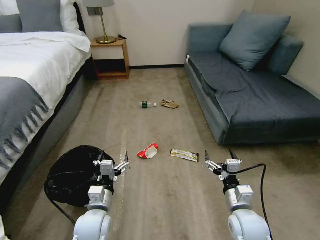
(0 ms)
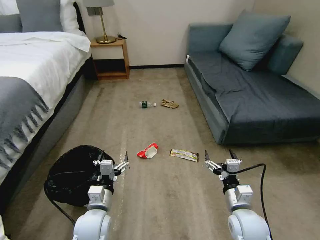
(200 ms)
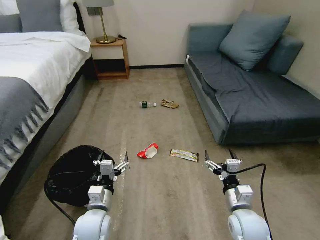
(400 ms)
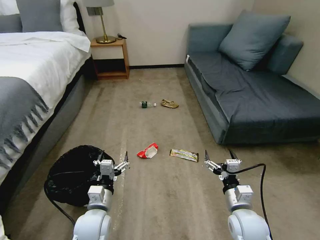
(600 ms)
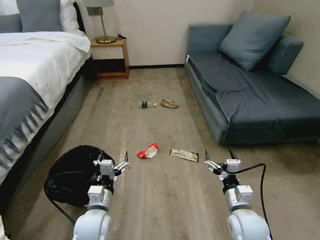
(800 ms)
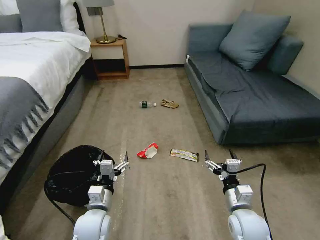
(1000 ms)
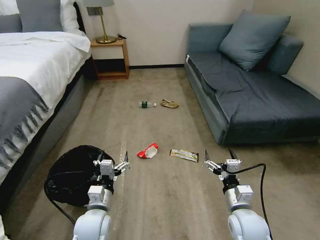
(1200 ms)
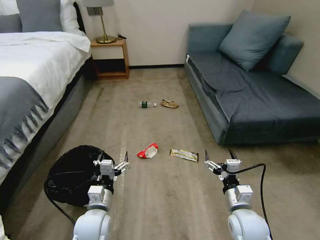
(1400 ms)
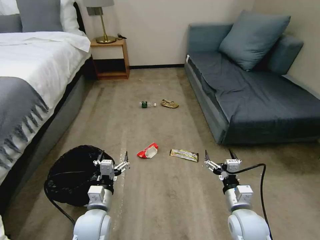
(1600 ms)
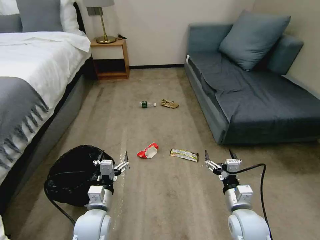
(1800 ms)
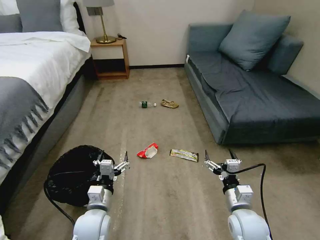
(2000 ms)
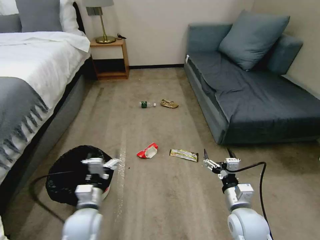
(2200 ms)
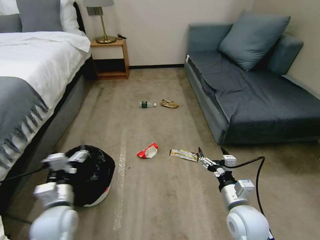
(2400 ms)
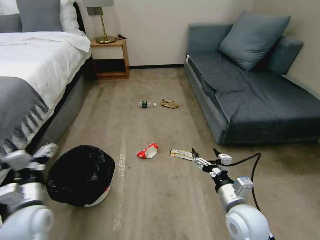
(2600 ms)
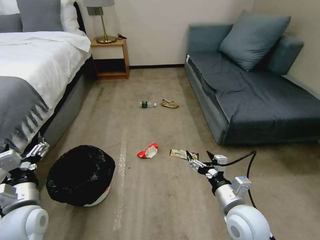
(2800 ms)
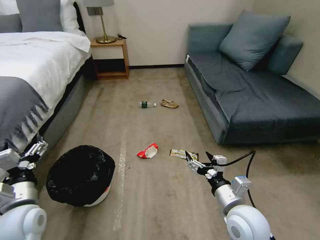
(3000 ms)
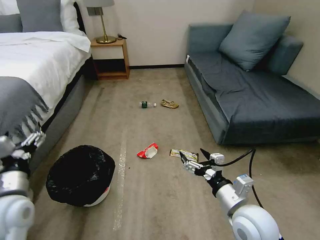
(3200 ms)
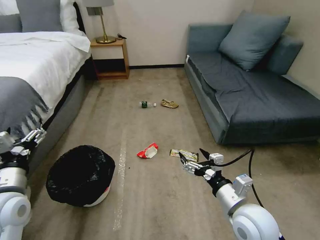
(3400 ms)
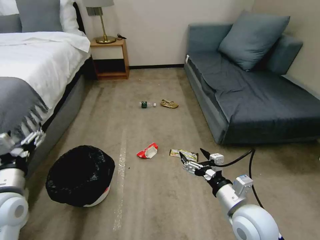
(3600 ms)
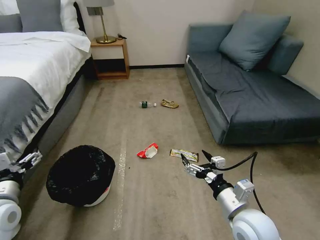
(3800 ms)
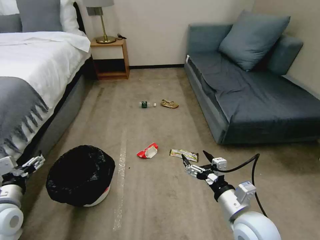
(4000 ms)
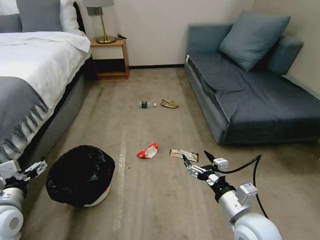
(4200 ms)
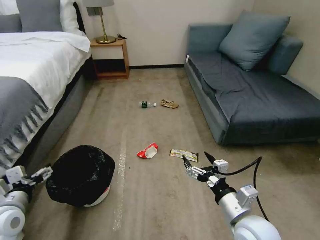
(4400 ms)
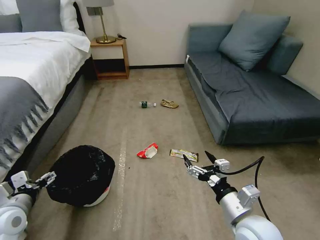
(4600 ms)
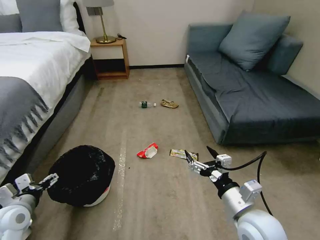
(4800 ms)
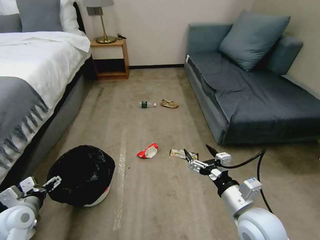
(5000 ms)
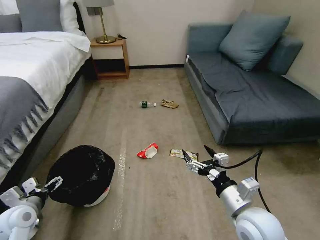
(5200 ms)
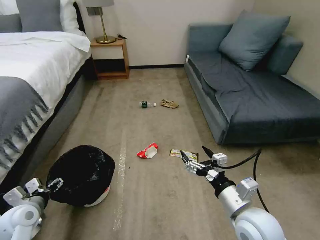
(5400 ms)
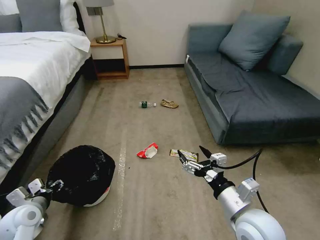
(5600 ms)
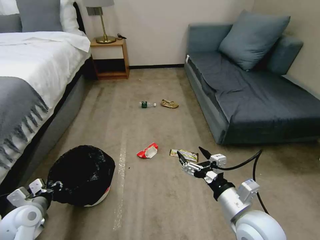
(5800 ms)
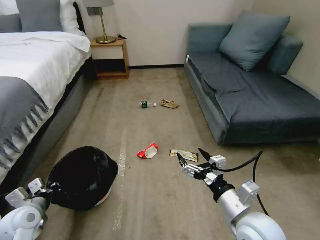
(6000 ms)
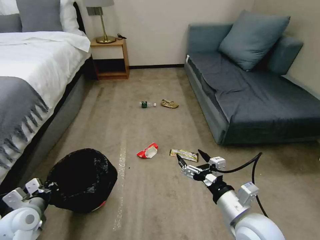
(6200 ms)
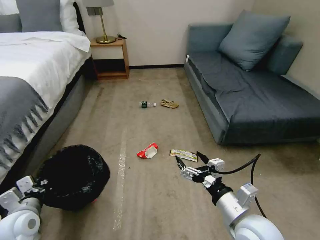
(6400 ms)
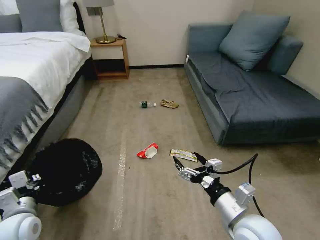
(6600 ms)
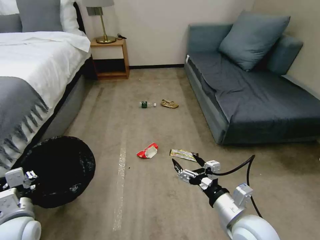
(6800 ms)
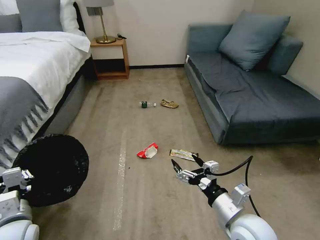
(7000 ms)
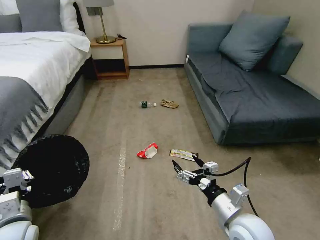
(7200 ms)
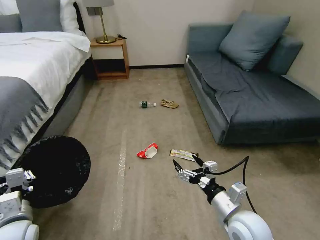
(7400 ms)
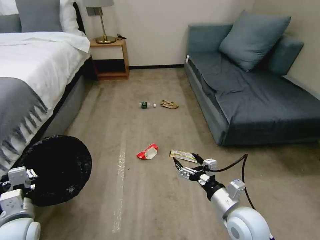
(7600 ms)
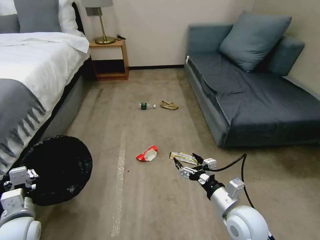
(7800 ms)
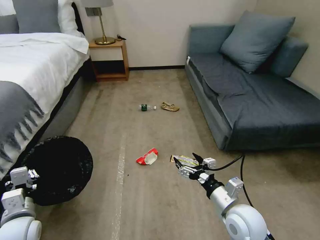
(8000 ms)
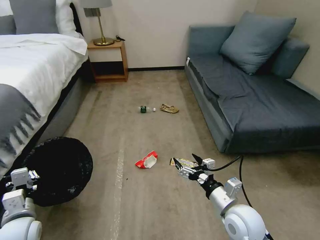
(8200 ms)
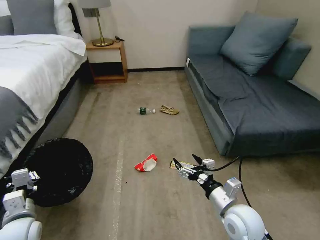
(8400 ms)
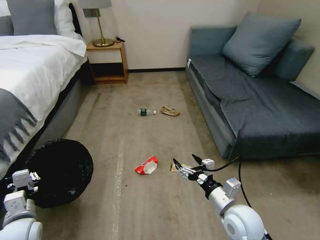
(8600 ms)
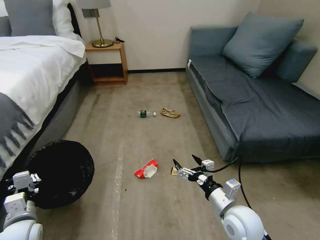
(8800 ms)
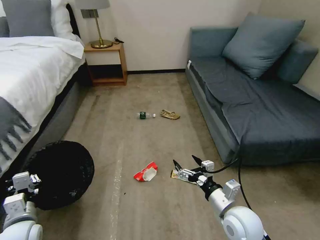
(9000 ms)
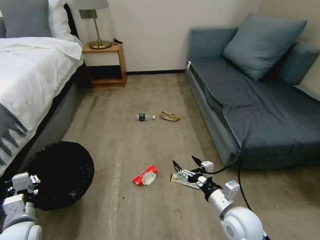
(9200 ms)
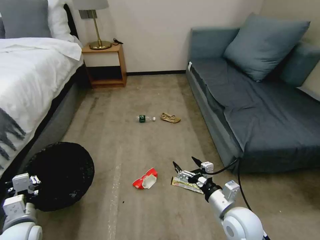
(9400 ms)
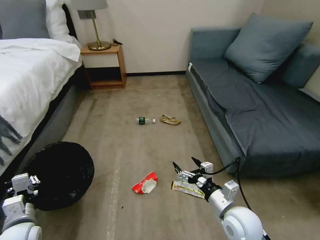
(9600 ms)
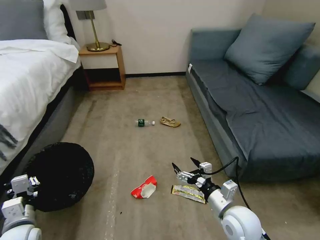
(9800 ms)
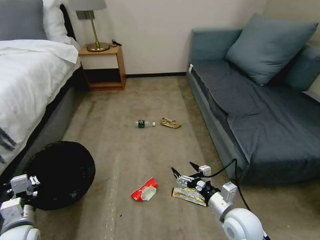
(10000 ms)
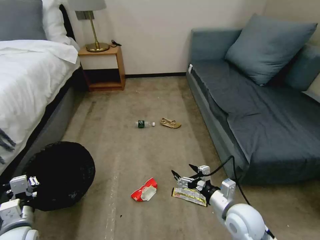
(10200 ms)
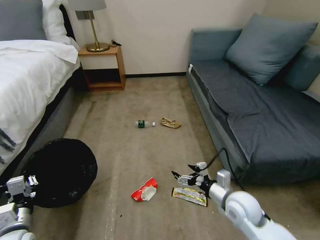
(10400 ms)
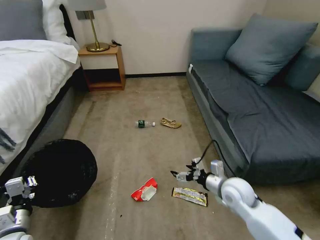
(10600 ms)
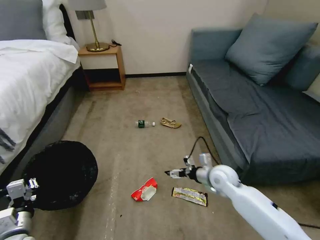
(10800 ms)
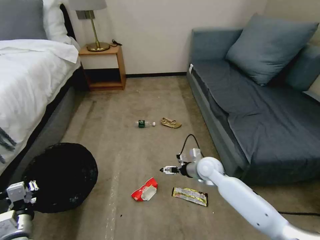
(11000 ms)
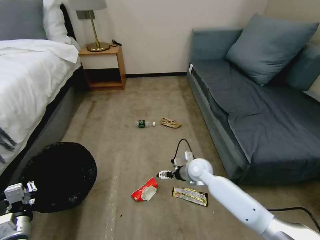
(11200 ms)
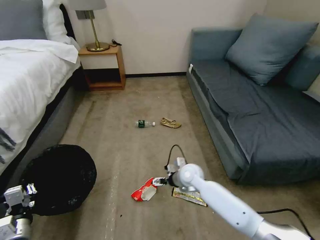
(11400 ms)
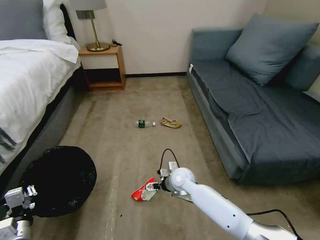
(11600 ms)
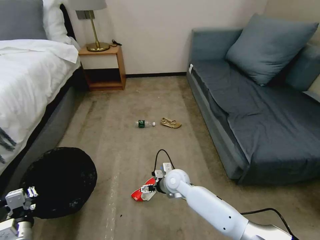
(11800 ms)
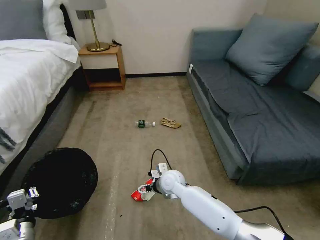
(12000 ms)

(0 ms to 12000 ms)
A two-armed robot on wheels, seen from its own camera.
Task of the whole recording: Pick up the trash bin, then pick up the garbage on the floor and place it into the trash bin.
1600 ms - 3000 ms: The left gripper goes about 20 cm to the left and upward, while the right gripper shifts about 5 cm upward.
3000 ms - 4400 ms: The left gripper shifts some 5 cm to the left.
4400 ms - 6000 ms: The left gripper goes approximately 10 cm downward, and closes up.
6000 ms - 7600 ms: The left gripper changes place by roughly 5 cm; the right gripper is displaced downward by some 5 cm.
10400 ms - 12000 ms: The right gripper moves to the left and forward, roughly 25 cm.

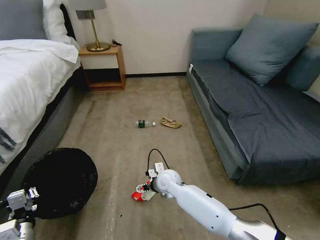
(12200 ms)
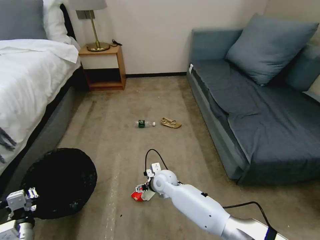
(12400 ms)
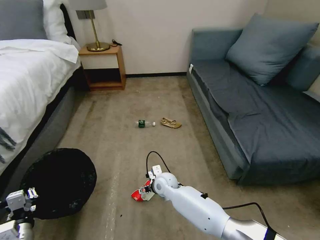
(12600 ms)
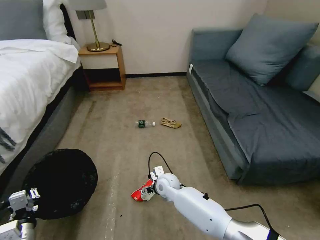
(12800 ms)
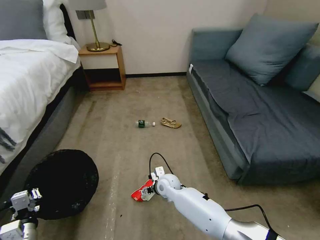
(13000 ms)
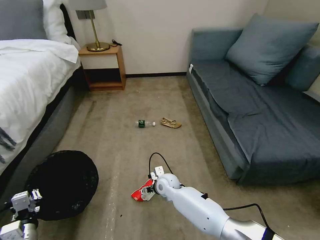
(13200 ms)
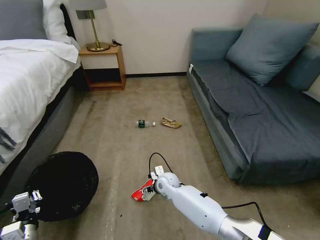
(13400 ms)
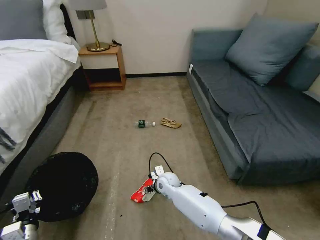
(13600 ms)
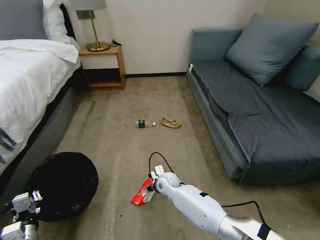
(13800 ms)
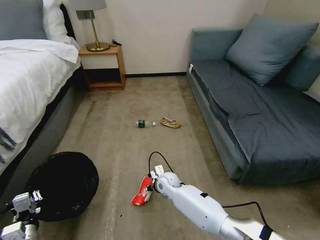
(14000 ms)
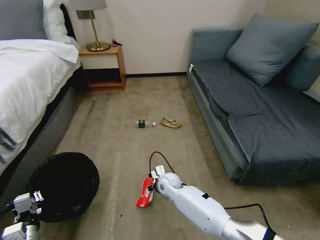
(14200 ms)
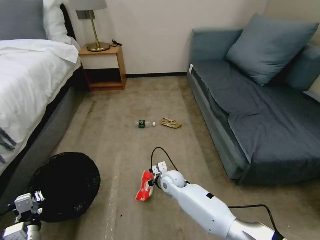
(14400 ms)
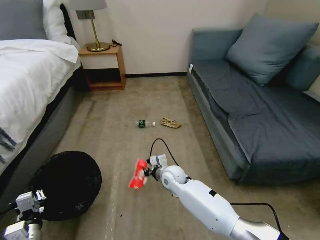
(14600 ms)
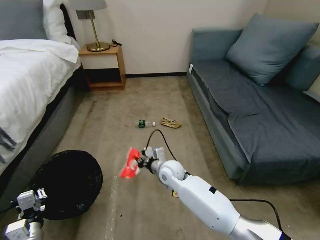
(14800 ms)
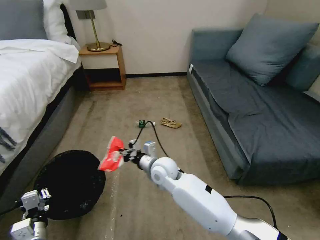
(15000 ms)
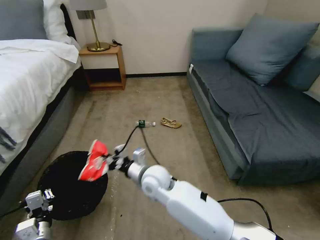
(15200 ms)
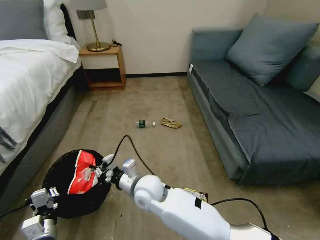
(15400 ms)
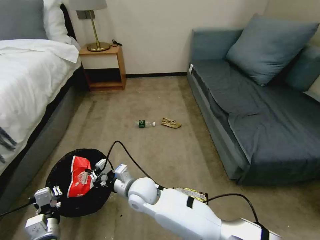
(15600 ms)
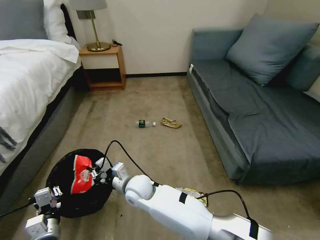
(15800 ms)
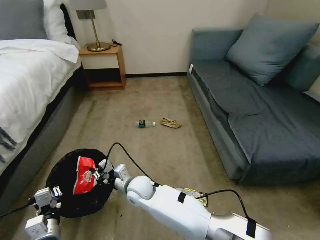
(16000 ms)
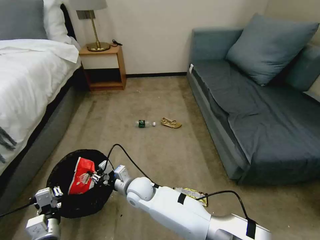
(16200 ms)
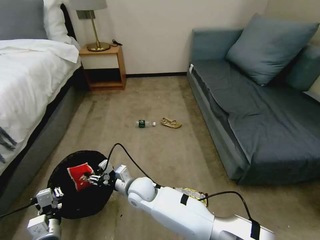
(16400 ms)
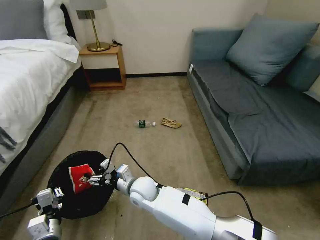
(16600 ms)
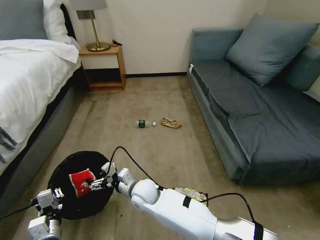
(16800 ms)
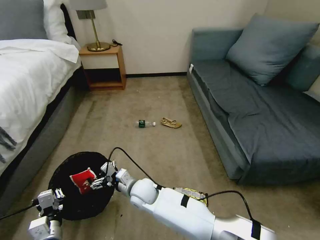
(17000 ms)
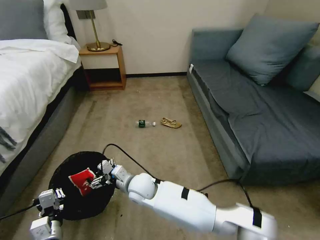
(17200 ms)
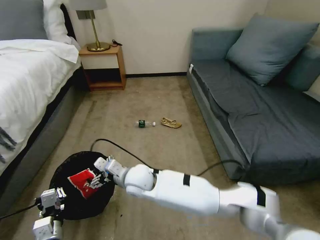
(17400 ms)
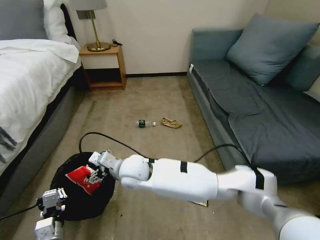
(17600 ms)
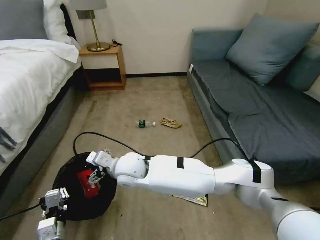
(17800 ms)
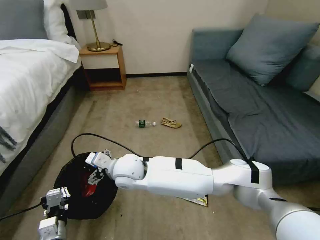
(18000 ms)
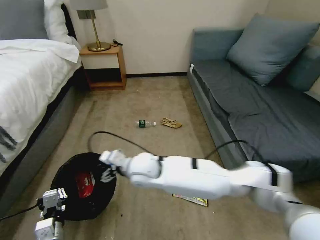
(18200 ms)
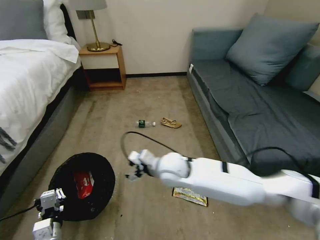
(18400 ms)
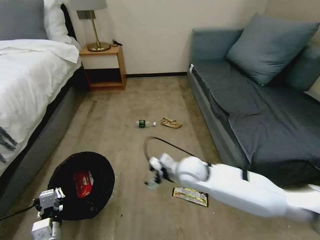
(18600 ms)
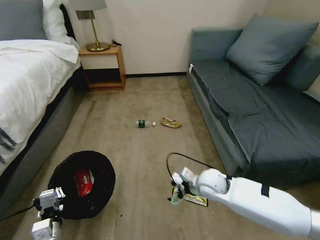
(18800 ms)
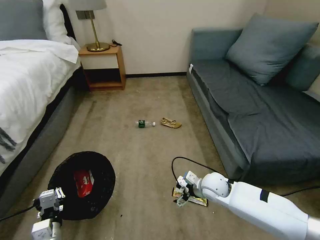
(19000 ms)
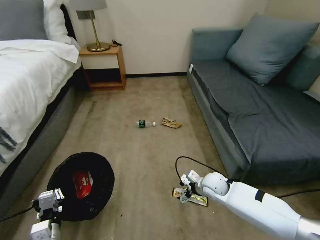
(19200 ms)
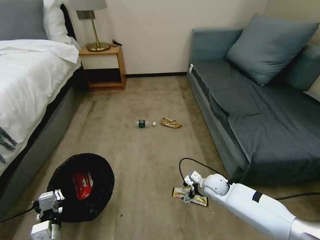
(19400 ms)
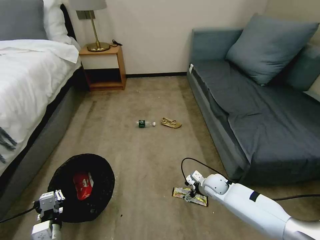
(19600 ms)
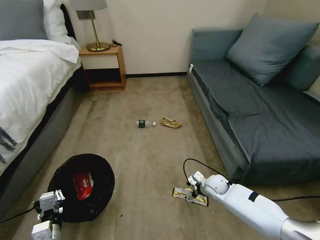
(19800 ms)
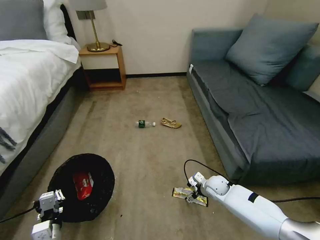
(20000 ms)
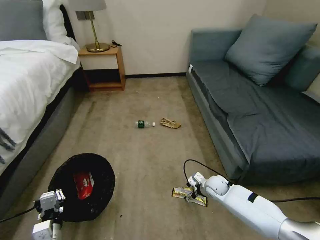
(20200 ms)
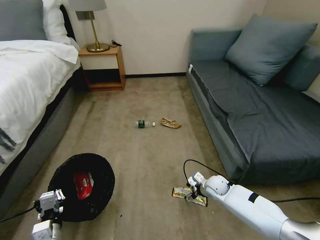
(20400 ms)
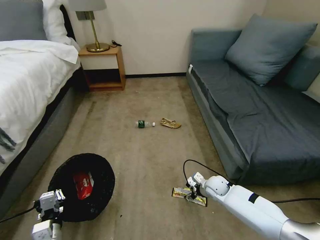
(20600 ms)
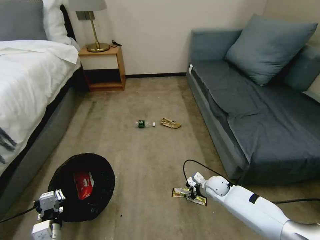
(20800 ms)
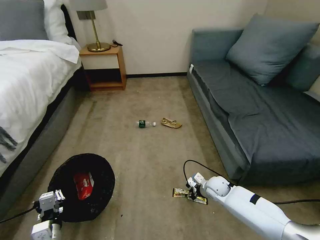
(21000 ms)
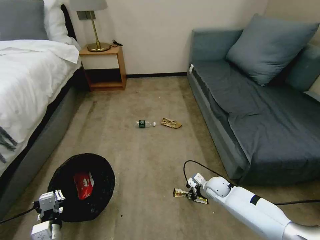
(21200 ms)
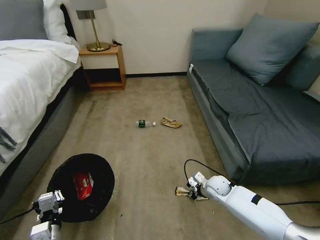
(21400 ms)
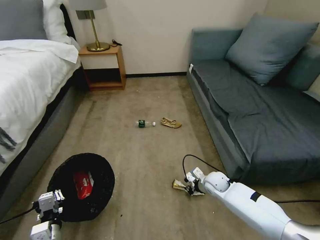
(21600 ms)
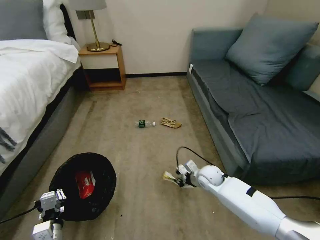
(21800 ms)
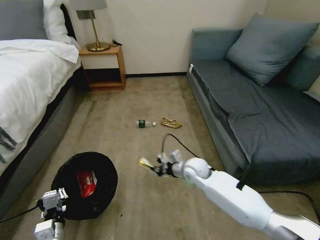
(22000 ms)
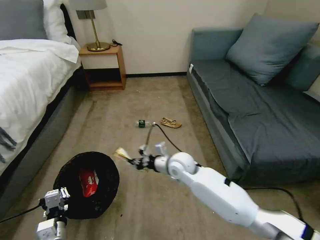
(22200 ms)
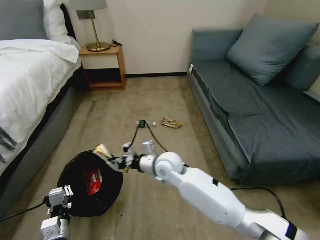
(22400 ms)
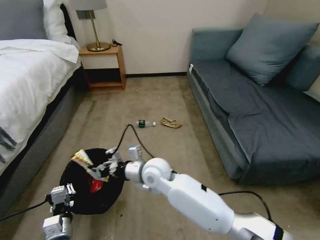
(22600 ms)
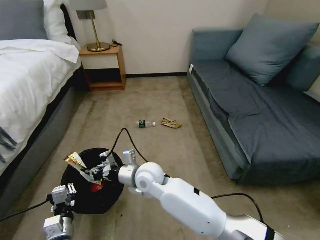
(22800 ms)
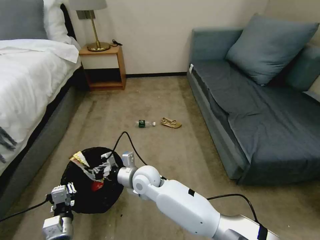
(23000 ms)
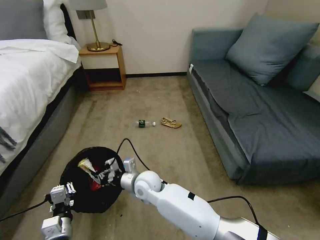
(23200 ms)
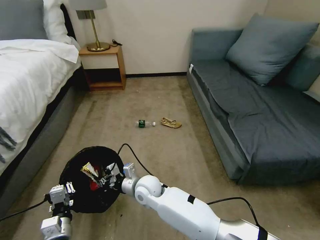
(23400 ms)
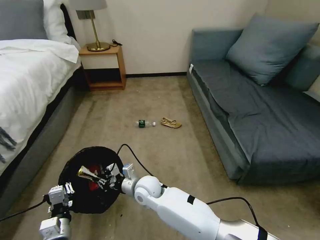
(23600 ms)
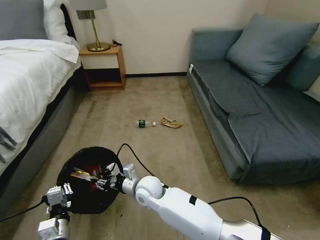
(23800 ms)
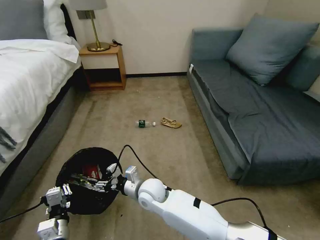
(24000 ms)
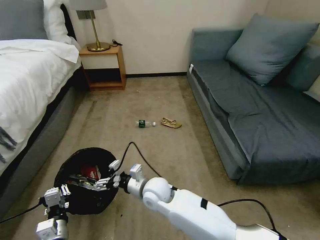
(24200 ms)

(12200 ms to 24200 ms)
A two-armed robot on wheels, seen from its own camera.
Task of the whole recording: Pick up the trash bin, then pick up the garbage on the floor and place it into the trash bin.
12200 ms - 13800 ms: The right gripper travels downward by about 5 cm, and closes its fingers.
13800 ms - 15200 ms: The right gripper moves upward, some 15 cm, and closes.
15200 ms - 16600 ms: The right gripper heads downward, covering about 5 cm, and opens its fingers.
16600 ms - 18200 ms: The right gripper travels upward by roughly 15 cm.
18200 ms - 19800 ms: The right gripper travels to the right and downward by roughly 40 cm.
19800 ms - 21200 ms: The right gripper closes up.
21200 ms - 22600 ms: The right gripper goes approximately 35 cm to the left and upward.
22600 ms - 24200 ms: The right gripper moves downward, about 5 cm, and opens its fingers.
